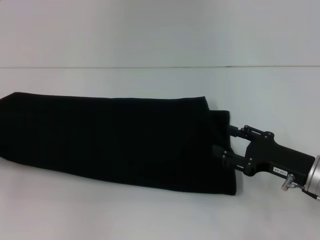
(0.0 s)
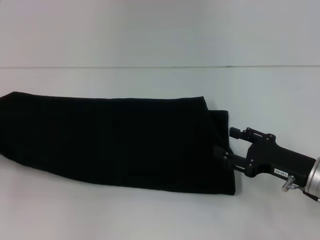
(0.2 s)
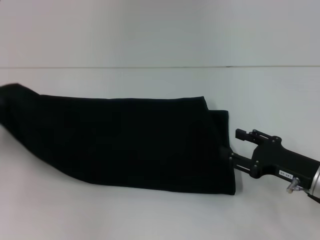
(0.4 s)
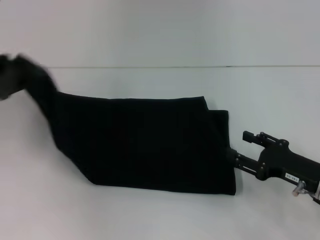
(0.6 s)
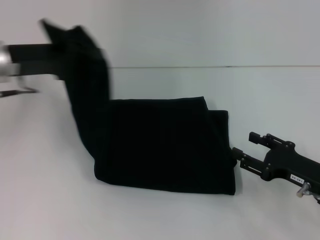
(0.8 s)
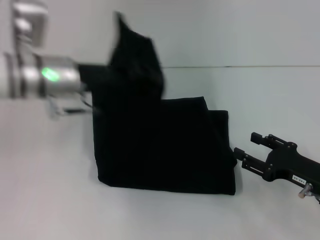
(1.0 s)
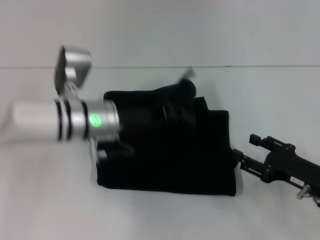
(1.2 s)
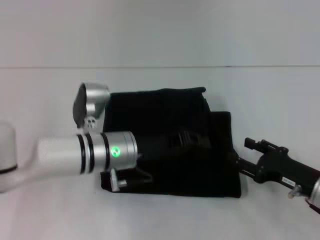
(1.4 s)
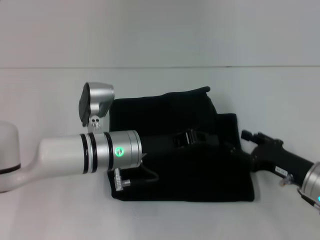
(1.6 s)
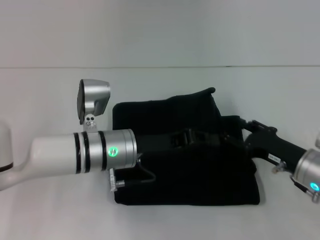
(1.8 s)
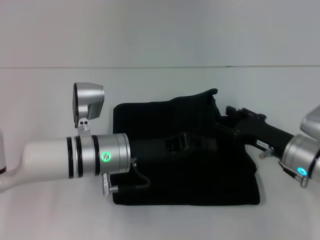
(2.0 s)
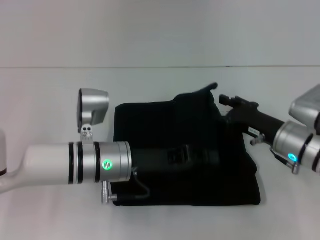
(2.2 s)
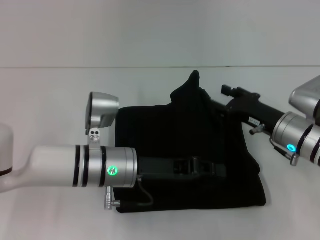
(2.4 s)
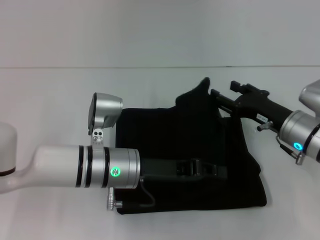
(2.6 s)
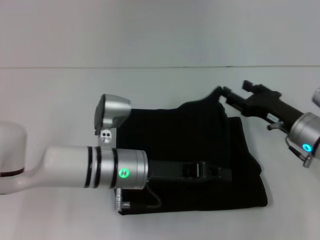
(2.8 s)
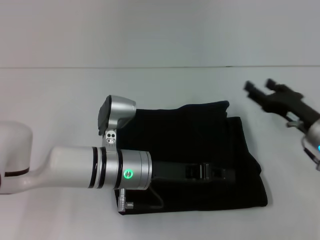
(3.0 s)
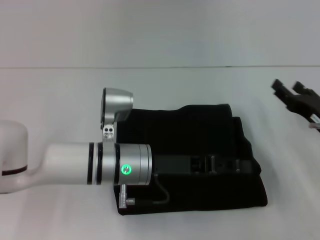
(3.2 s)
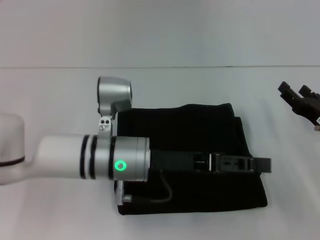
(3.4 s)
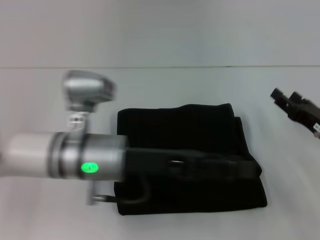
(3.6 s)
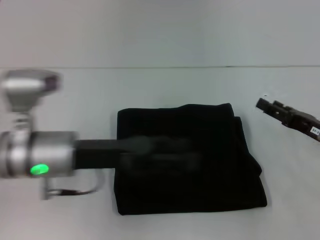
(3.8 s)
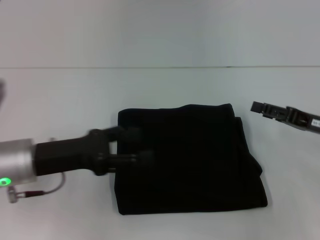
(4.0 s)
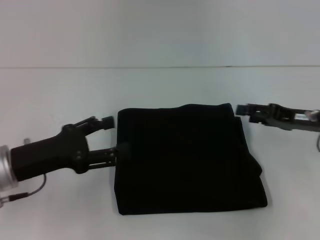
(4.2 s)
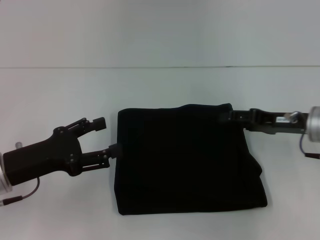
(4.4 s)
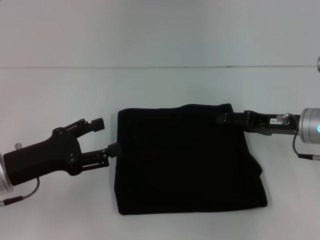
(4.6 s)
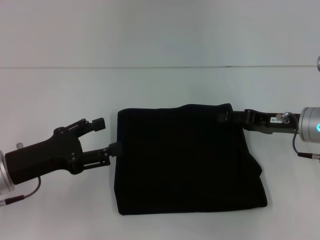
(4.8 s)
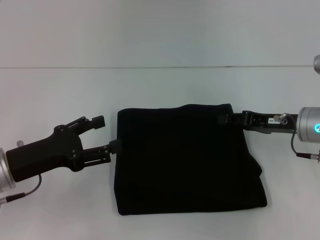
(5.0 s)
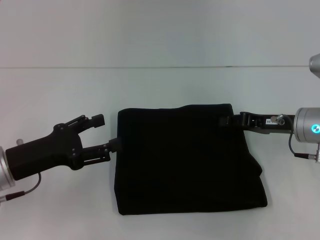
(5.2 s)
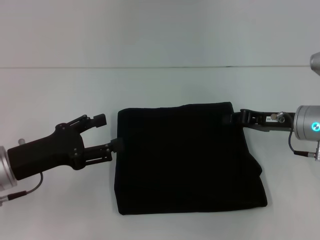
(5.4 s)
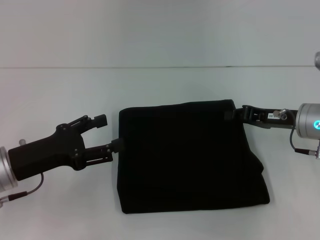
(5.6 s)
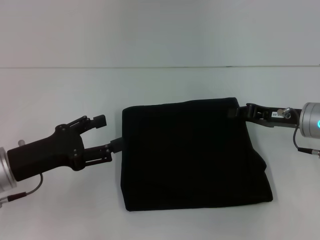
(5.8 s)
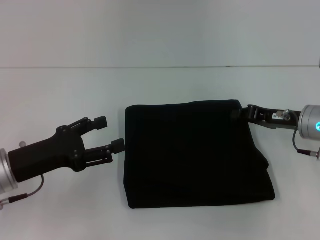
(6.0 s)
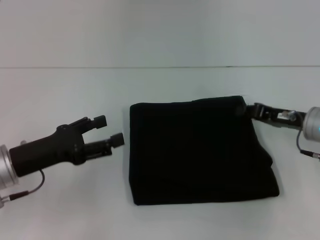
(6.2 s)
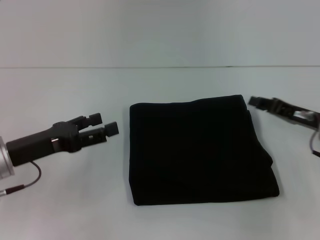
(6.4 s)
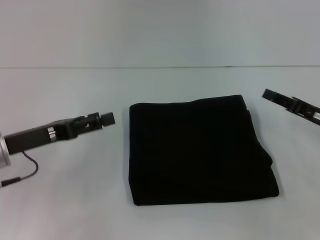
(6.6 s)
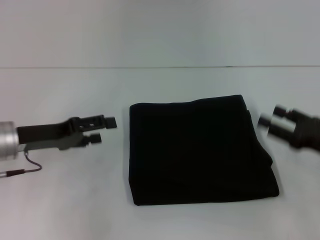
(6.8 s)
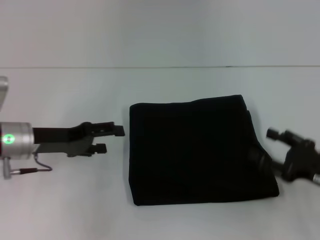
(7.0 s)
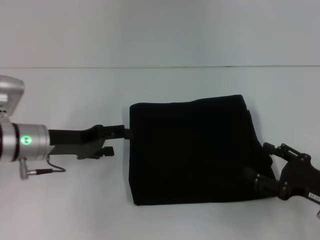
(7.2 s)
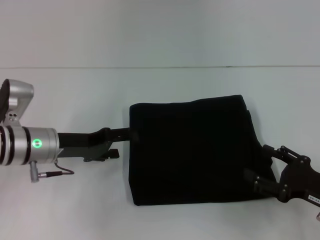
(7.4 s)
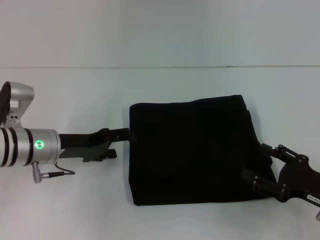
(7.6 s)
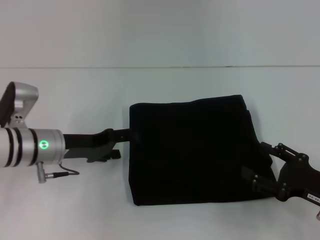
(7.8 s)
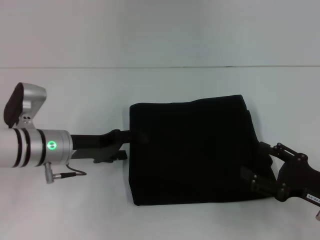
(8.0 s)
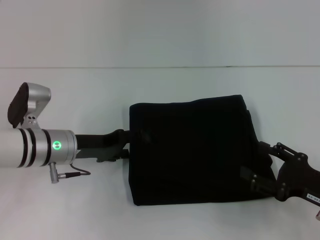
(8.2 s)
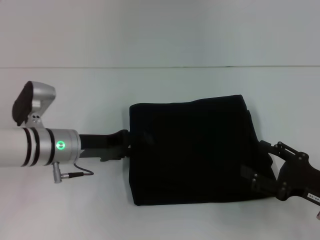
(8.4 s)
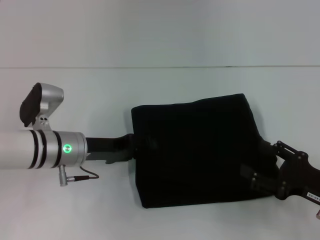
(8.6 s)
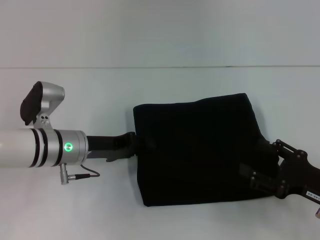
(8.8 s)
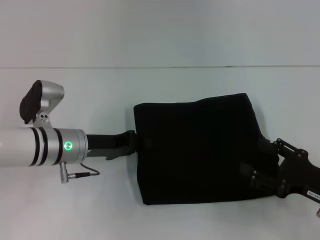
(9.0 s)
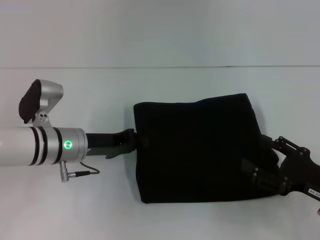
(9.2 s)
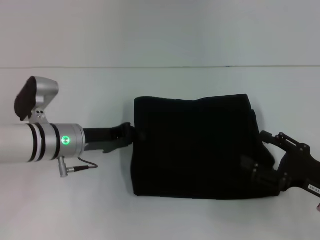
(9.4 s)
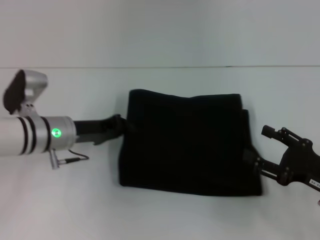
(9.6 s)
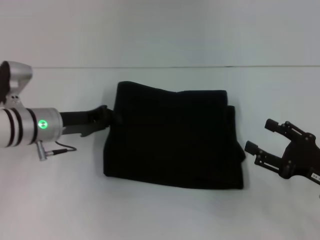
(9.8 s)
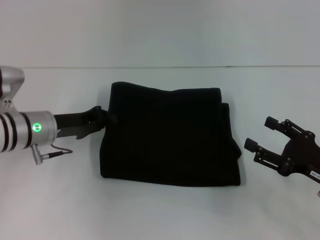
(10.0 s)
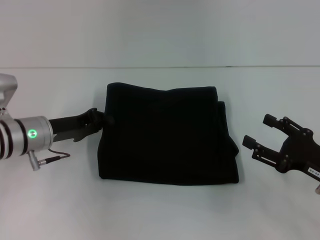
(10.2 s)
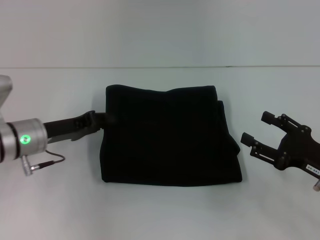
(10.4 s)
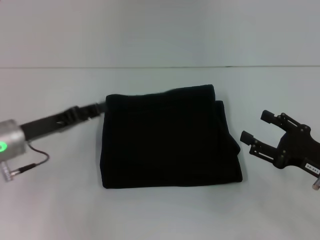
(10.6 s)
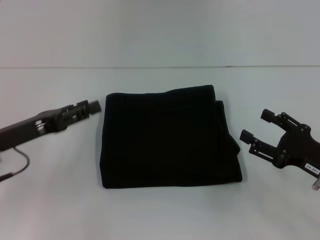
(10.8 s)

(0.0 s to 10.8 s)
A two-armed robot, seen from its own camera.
Step, 0.0 s - 2.0 s: Fold the clothes with your left hand.
0.0 s - 1.6 s: The left gripper is displaced to the right by some 35 cm.
1.6 s - 3.0 s: The right gripper heads forward, covering approximately 5 cm.
3.0 s - 4.6 s: The left gripper heads to the left, covering some 20 cm, and opens its fingers.
4.6 s - 6.2 s: The right gripper closes up.
6.2 s - 7.8 s: The left gripper moves forward, about 5 cm. Meanwhile the right gripper moves backward, roughly 15 cm, and opens.
7.8 s - 9.2 s: The left gripper closes its fingers.
9.2 s - 10.8 s: The left gripper heads to the left and backward, covering approximately 10 cm.

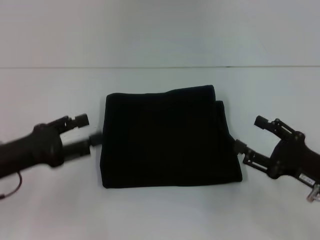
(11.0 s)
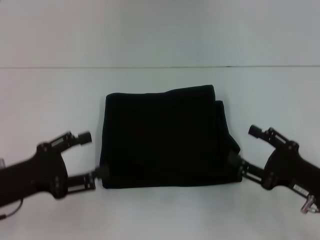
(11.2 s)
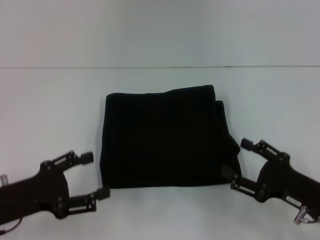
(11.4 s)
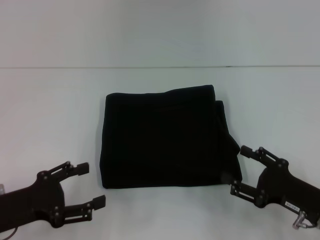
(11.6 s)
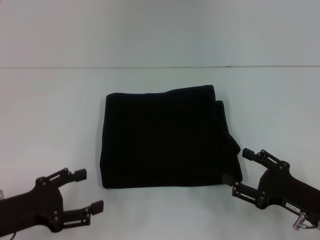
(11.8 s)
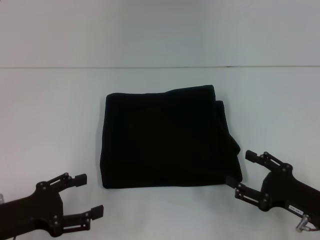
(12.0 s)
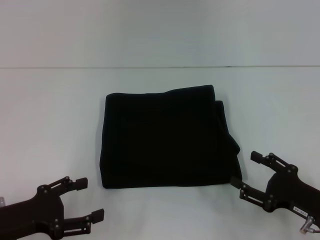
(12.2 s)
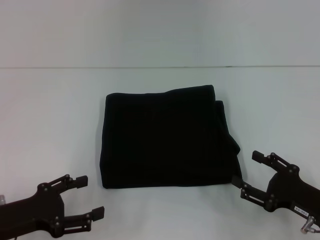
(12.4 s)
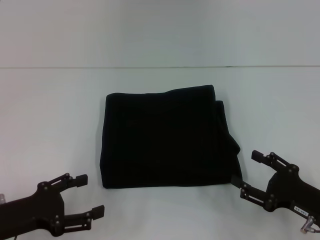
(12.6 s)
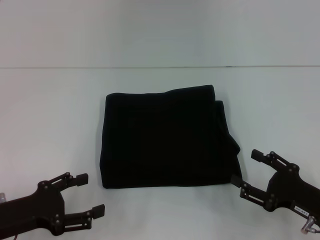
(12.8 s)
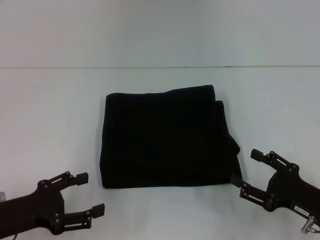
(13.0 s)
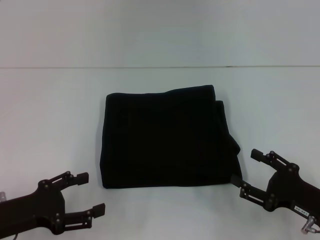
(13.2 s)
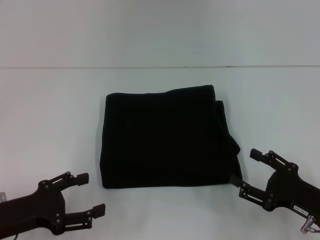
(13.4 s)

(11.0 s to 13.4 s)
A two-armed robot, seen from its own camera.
11.0 s - 12.2 s: The left gripper changes place by approximately 5 cm.
12.2 s - 13.4 s: Both grippers stay put.

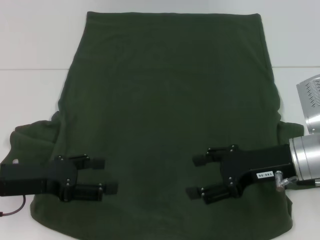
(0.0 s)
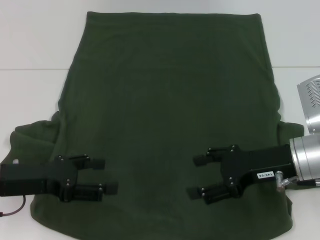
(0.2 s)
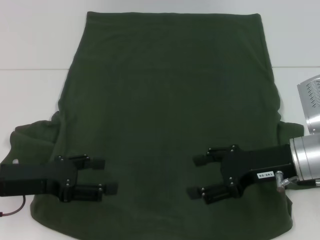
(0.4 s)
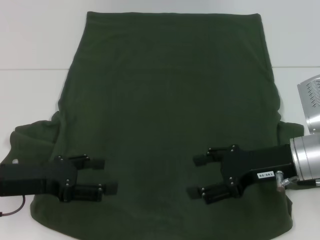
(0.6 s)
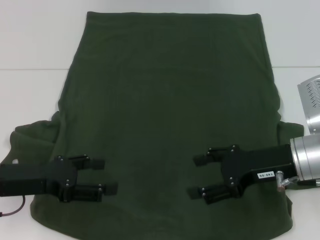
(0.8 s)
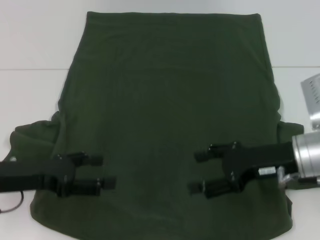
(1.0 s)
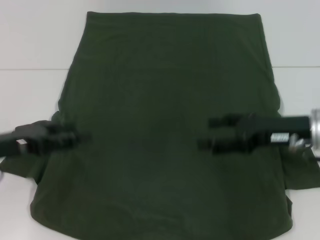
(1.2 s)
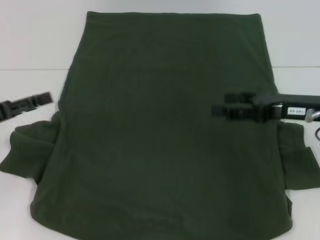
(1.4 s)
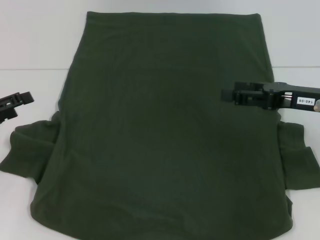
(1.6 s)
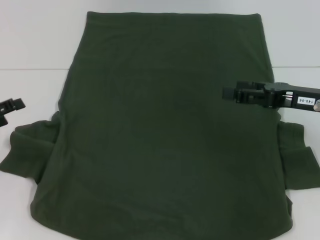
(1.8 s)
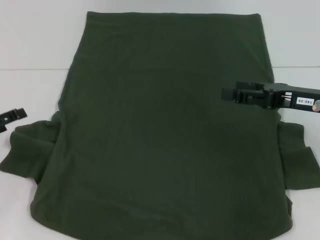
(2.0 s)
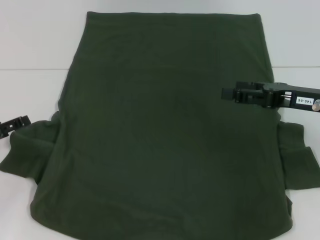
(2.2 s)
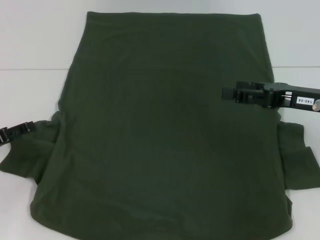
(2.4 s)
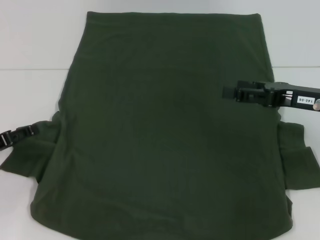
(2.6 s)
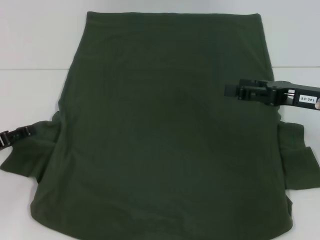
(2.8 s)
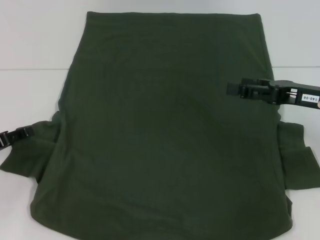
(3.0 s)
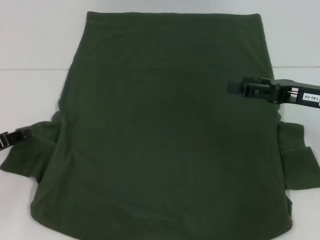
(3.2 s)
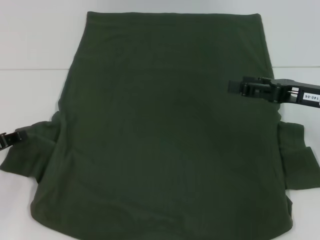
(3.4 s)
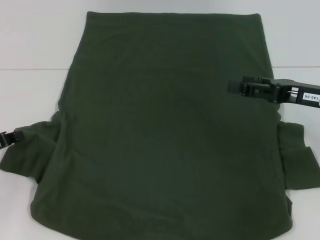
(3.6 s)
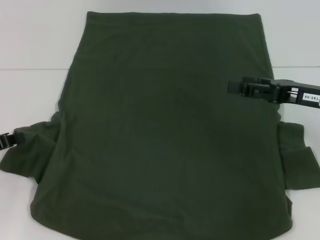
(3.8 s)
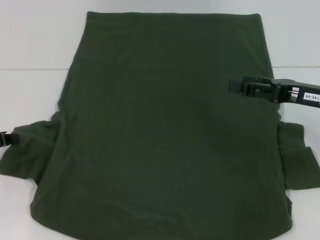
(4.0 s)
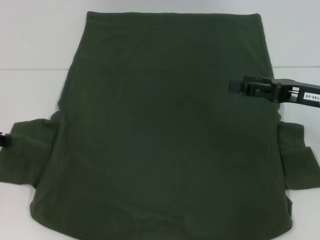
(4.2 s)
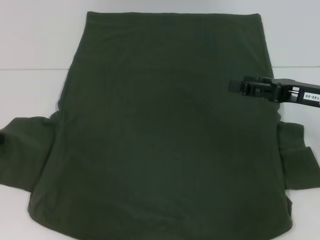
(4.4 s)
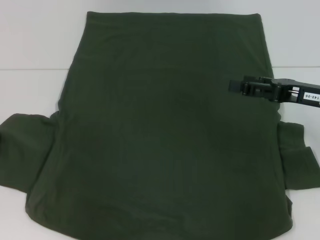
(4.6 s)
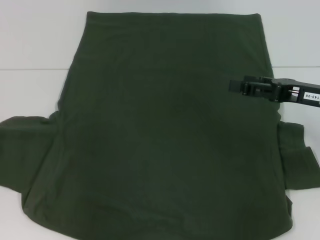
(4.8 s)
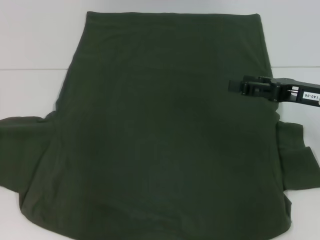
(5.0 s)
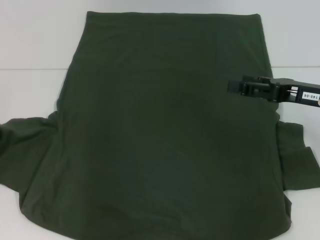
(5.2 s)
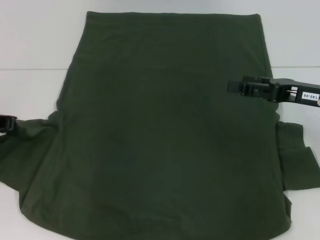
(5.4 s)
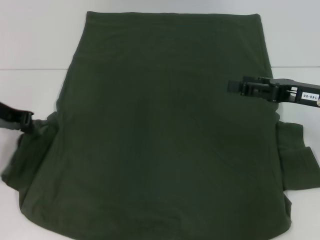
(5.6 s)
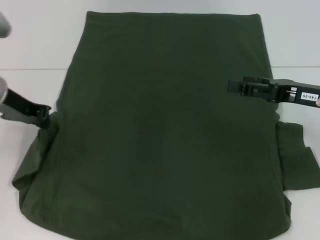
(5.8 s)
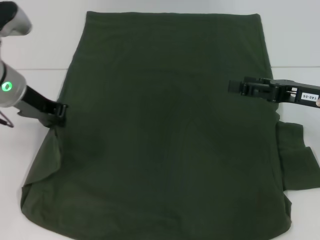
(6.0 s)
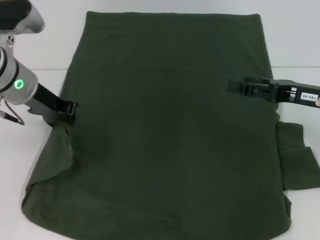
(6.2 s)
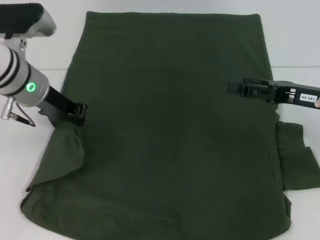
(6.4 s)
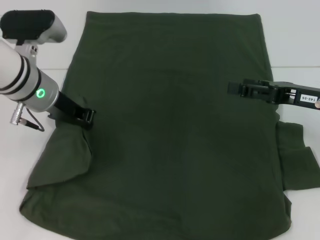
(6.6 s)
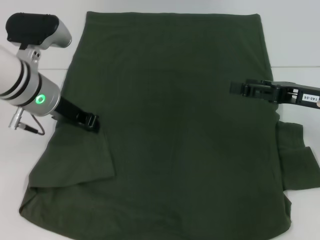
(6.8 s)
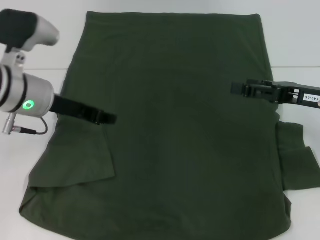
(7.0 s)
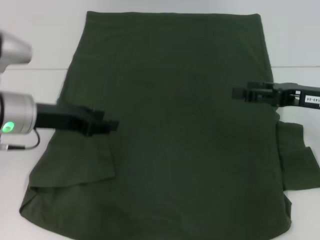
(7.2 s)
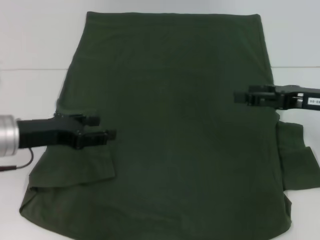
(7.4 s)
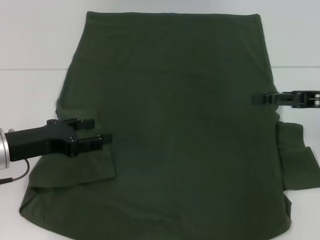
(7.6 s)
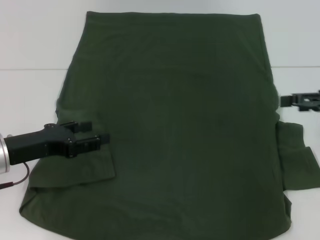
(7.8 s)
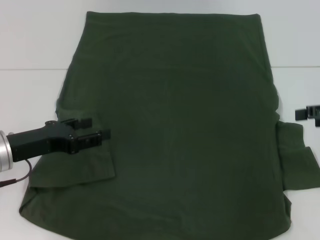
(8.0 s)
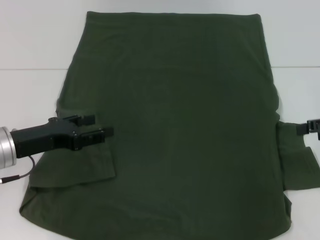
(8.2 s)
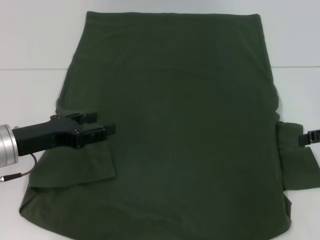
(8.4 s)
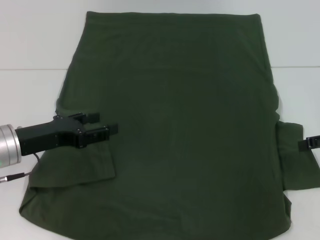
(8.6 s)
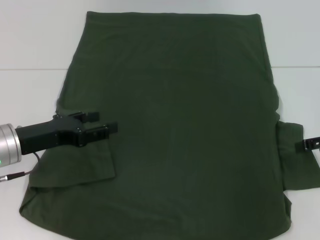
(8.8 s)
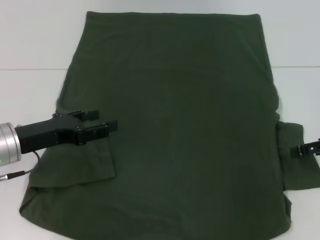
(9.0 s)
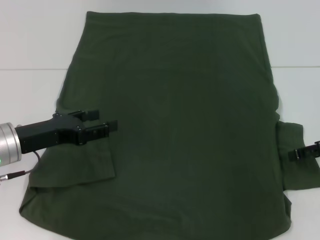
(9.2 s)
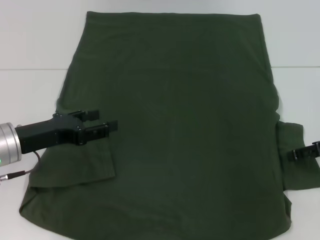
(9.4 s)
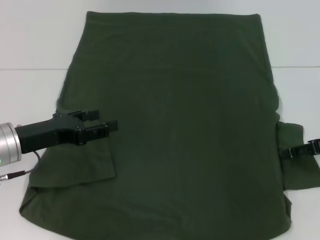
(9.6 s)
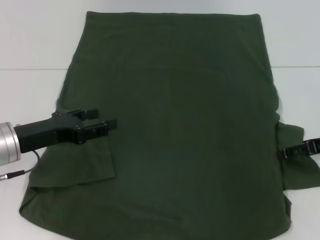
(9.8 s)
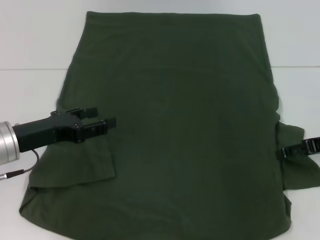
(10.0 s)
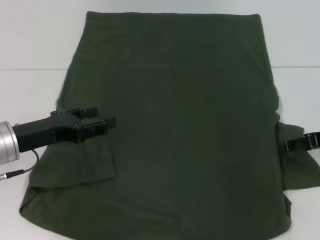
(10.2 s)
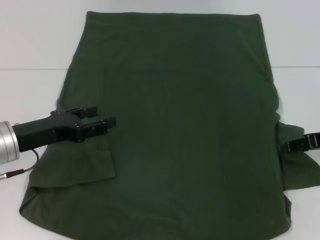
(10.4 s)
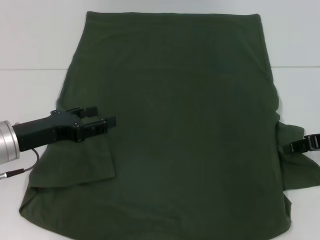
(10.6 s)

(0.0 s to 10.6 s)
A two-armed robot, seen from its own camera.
Step, 0.0 s - 7.4 s: Fold the bottom left sleeve with your left hand.
0.0 s - 1.6 s: The left gripper shifts about 10 cm to the left, while the right gripper is displaced to the right by some 5 cm.
1.6 s - 3.0 s: The left gripper travels downward by roughly 5 cm.
3.0 s - 4.6 s: The left gripper shifts approximately 5 cm upward, and closes up.
4.6 s - 6.0 s: The left gripper shifts approximately 15 cm to the right, upward and forward.
6.0 s - 7.6 s: The left gripper shifts approximately 10 cm backward and downward, and opens.
9.0 s - 10.6 s: The grippers stay close to where they were, moving slightly.
